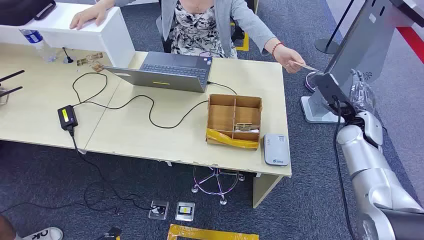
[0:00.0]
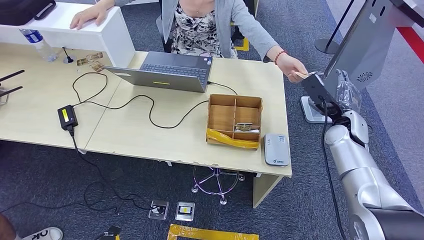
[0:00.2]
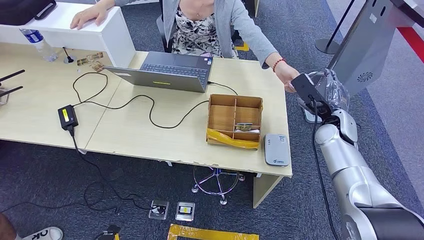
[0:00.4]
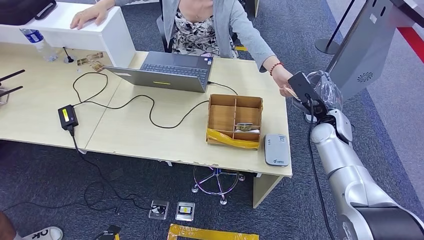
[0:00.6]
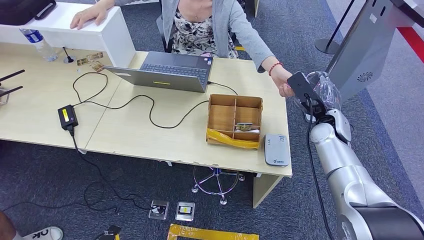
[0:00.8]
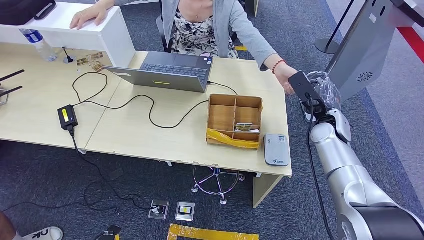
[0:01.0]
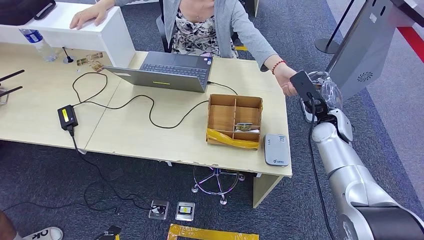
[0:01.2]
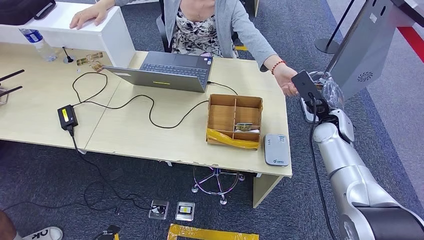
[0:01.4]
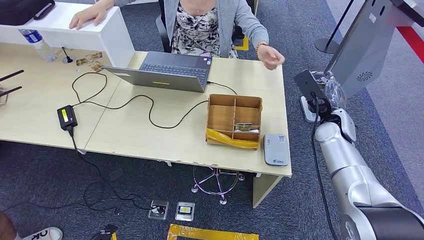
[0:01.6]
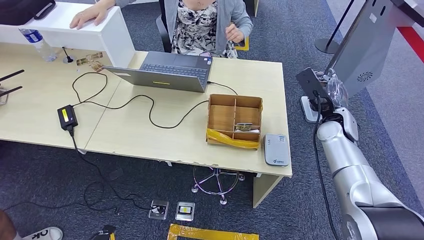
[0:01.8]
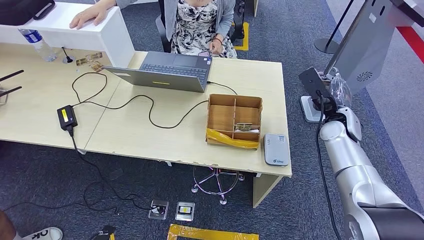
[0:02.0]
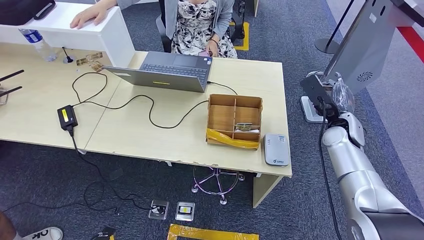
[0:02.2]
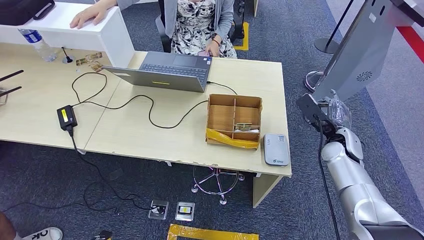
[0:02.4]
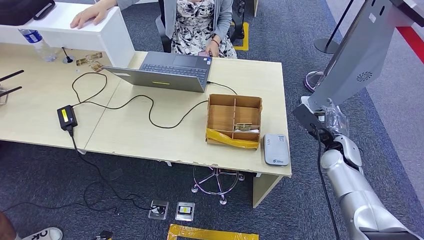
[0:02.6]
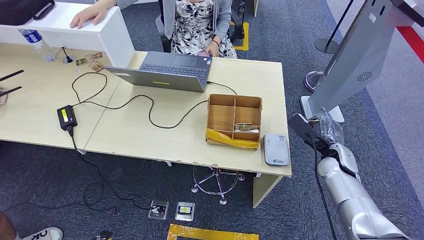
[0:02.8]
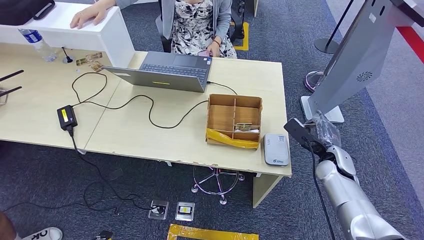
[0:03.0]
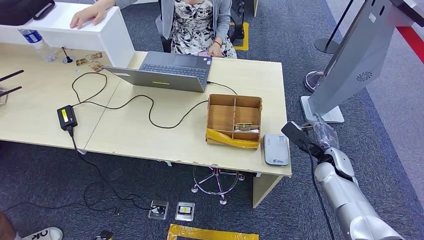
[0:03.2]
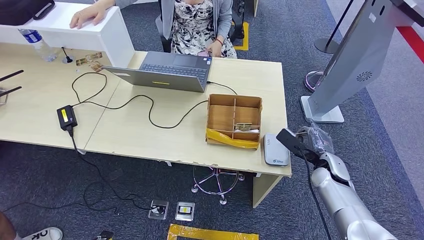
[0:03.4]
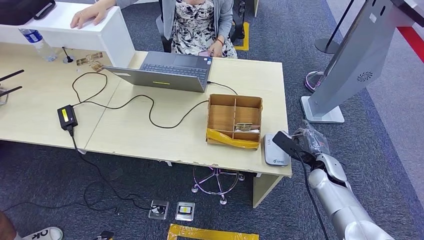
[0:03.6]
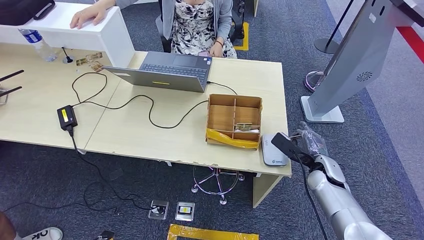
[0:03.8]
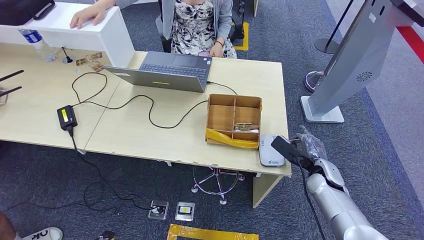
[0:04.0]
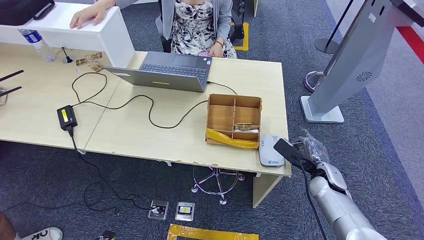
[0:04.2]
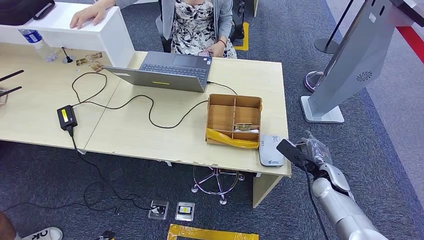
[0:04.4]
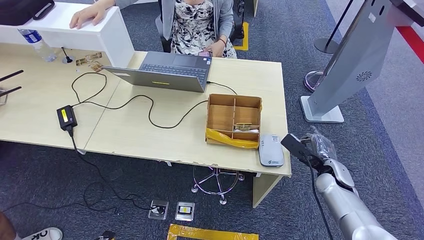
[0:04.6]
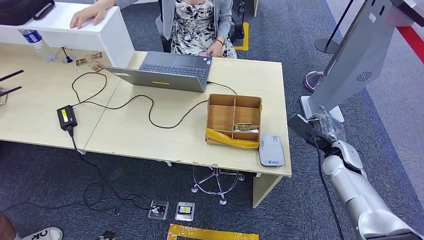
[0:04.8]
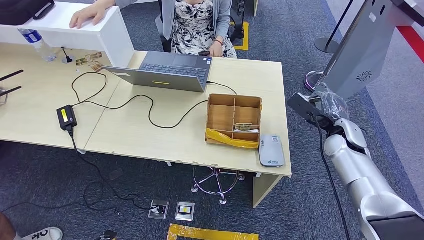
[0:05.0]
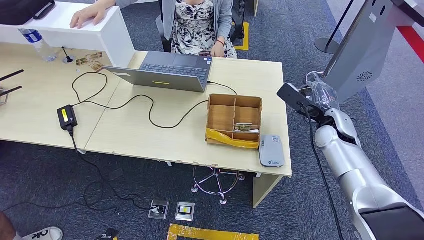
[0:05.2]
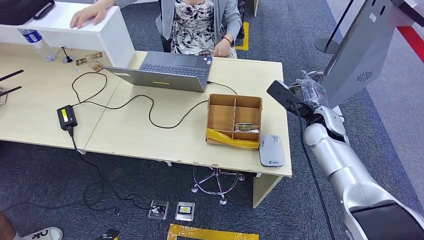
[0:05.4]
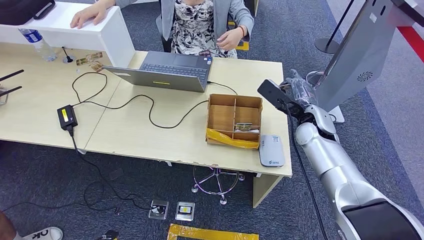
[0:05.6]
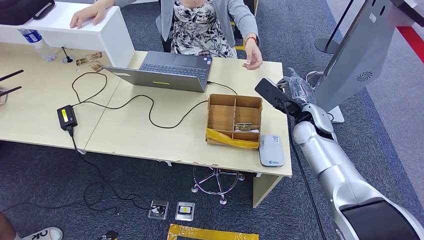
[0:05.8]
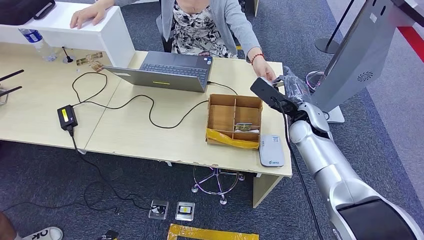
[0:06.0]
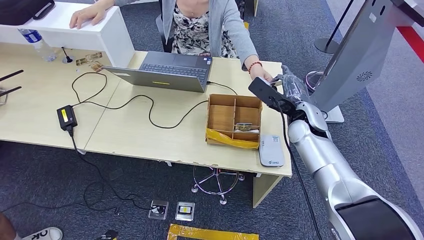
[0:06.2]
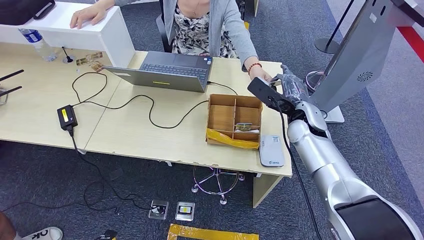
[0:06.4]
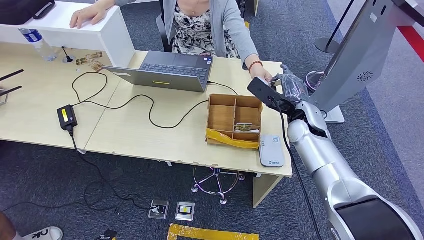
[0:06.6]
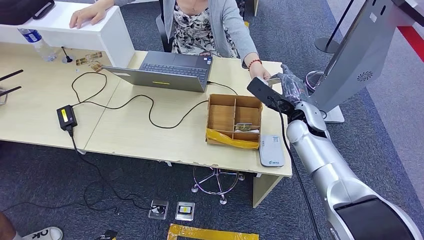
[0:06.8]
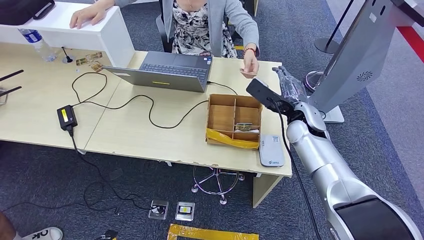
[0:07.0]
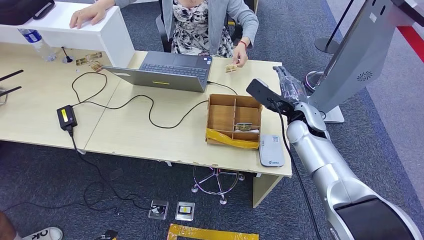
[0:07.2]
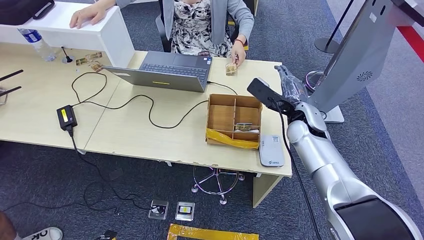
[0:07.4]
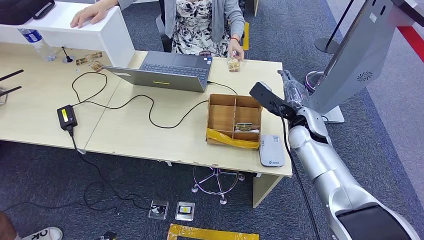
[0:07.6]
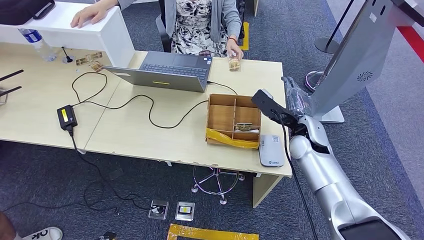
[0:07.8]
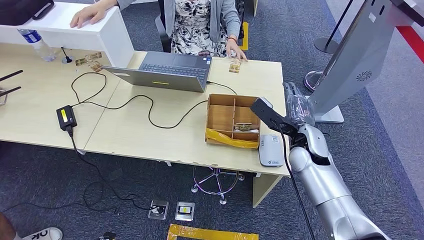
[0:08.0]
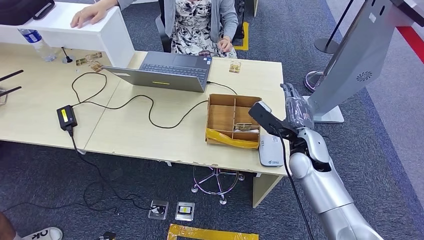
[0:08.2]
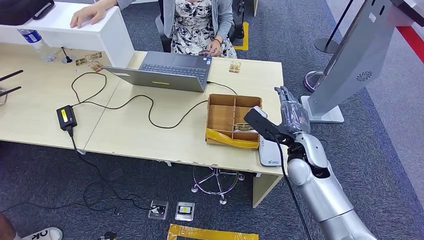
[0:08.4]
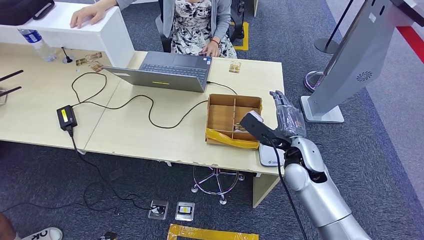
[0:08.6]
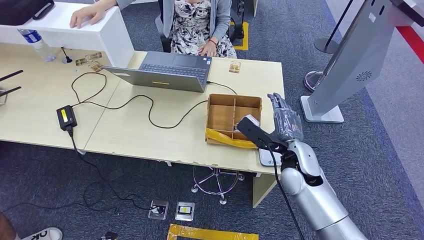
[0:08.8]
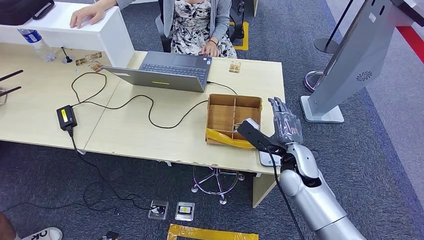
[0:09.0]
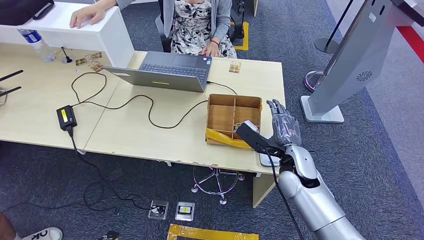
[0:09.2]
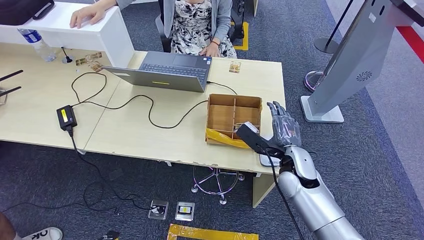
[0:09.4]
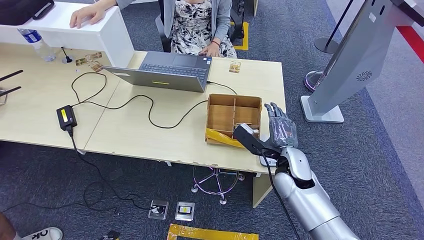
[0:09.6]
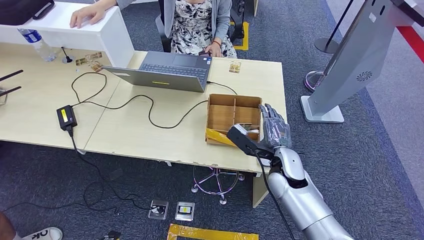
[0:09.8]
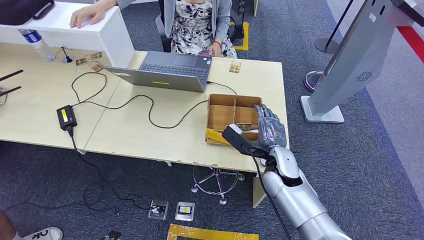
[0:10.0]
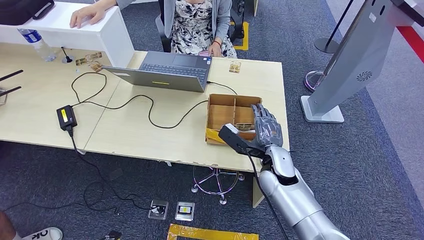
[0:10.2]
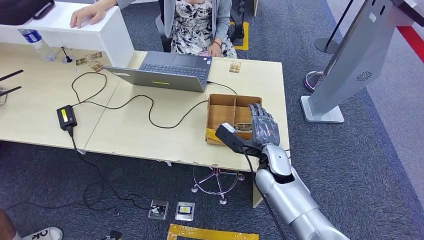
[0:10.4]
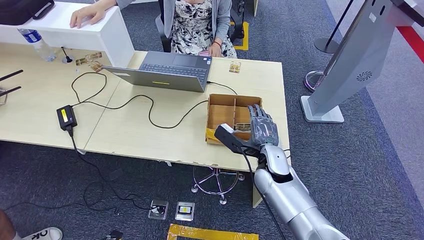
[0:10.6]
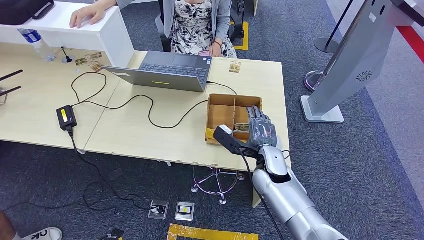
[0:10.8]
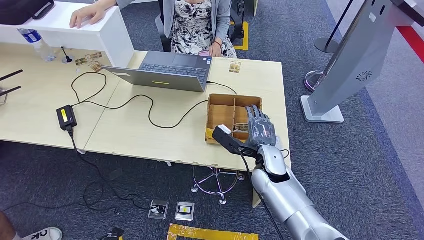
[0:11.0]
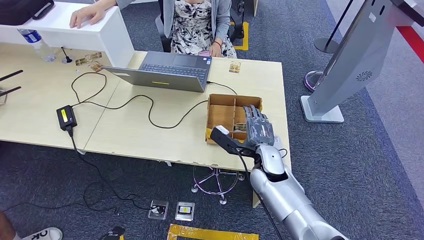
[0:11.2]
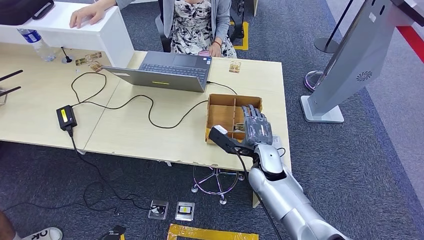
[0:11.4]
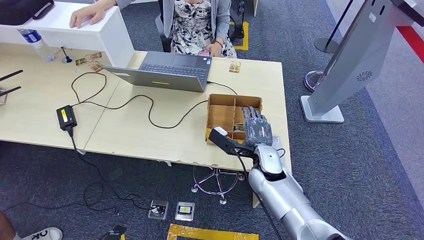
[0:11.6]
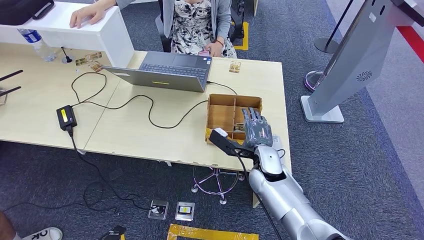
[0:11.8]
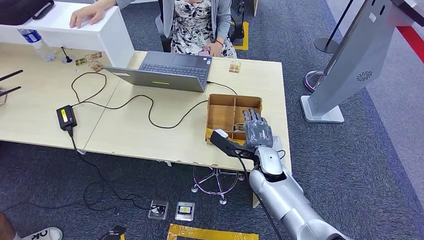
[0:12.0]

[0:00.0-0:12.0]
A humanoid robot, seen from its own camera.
Step, 0:00.0 to 0:02.4: Take the ID card from the person's hand.
Step, 0:02.6 to 0:05.6: Place the ID card on the card reader.
Step, 0:05.8 to 0:09.4: Hand the ID card to the person.
0:01.6 to 0:03.0: The right hand is displaced downward and backward by approximately 10 cm.
0:03.0 to 0:04.4: The right hand changes place by approximately 5 cm.
0:04.4 to 0:06.0: The right hand is displaced upward, to the left and forward by some 20 cm.
0:06.0 to 0:07.6: Neither hand changes place.
0:07.6 to 0:09.0: The right hand shifts approximately 10 cm backward and downward.
0:09.0 to 0:10.4: The right hand heads to the left, covering about 5 cm.
0:10.4 to 0:12.0: The hands move only a little.

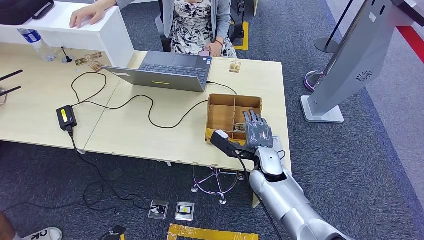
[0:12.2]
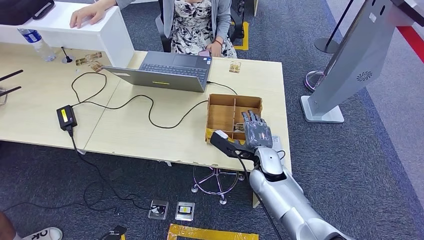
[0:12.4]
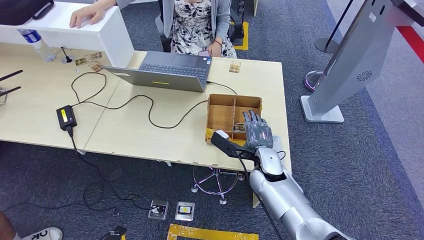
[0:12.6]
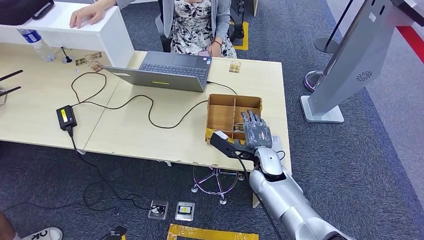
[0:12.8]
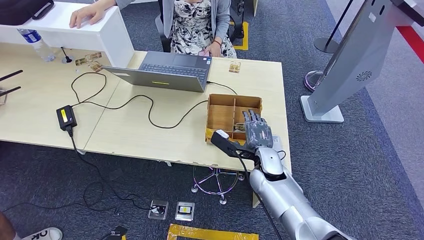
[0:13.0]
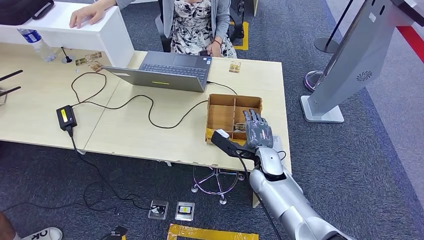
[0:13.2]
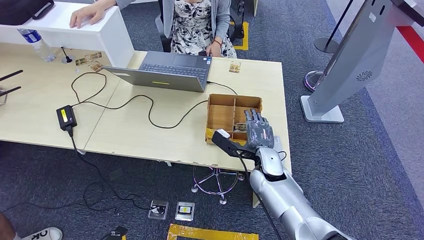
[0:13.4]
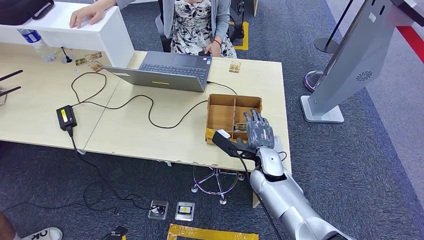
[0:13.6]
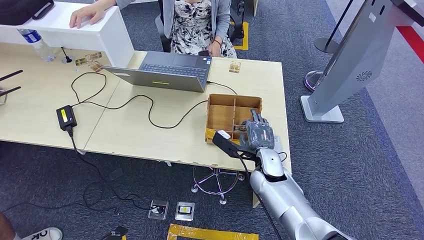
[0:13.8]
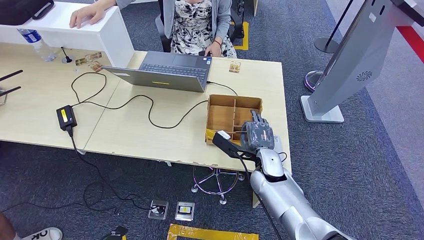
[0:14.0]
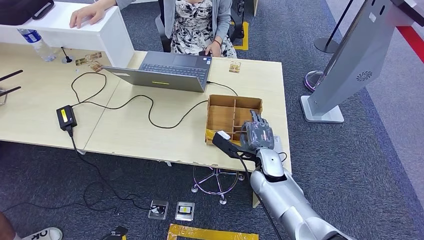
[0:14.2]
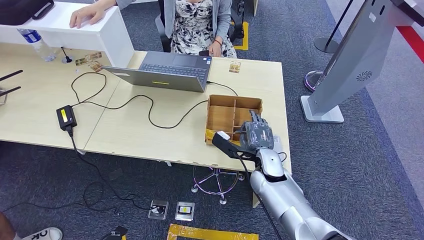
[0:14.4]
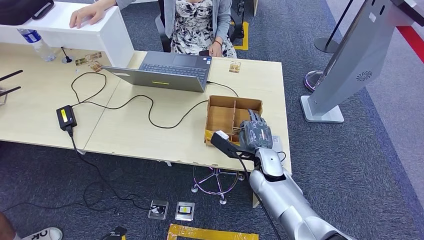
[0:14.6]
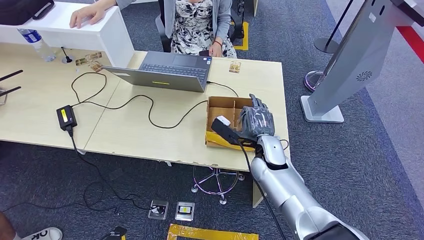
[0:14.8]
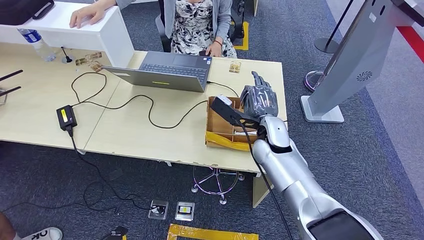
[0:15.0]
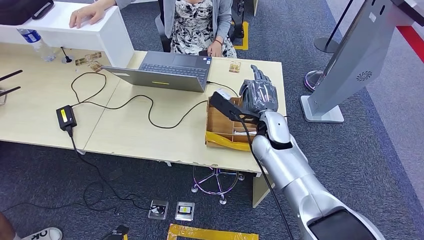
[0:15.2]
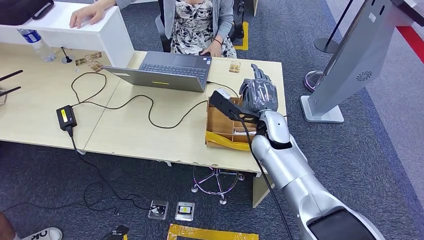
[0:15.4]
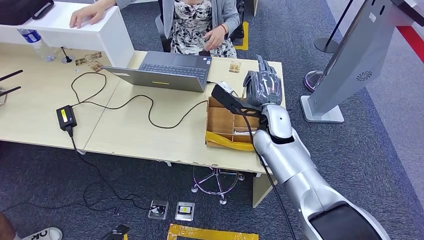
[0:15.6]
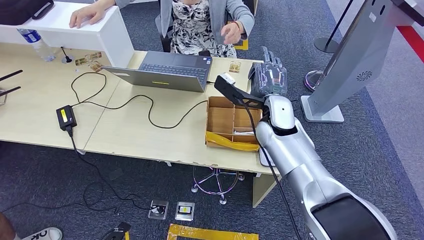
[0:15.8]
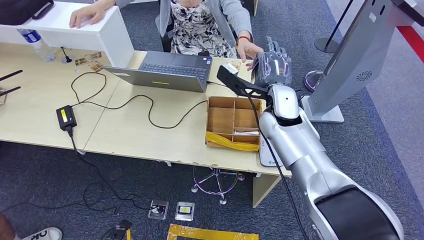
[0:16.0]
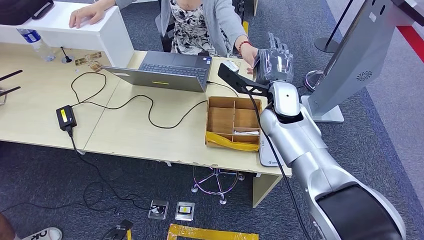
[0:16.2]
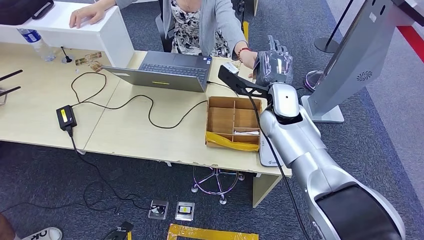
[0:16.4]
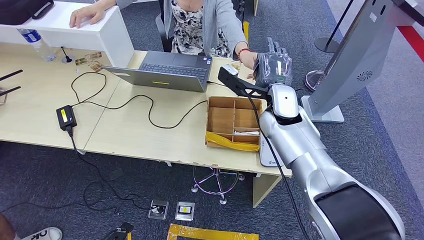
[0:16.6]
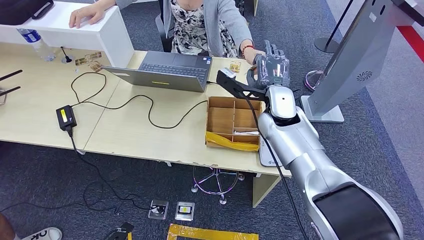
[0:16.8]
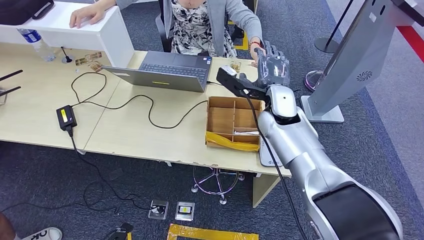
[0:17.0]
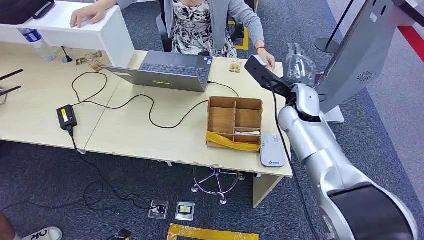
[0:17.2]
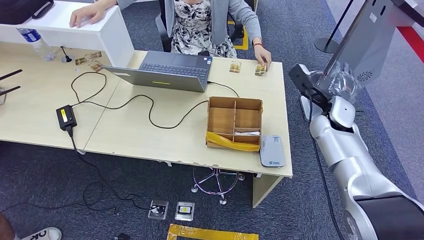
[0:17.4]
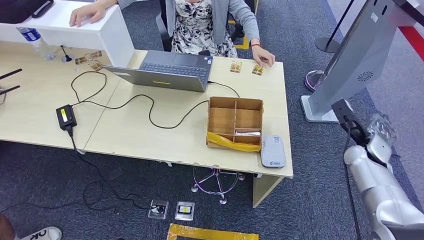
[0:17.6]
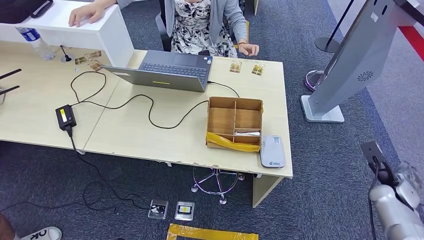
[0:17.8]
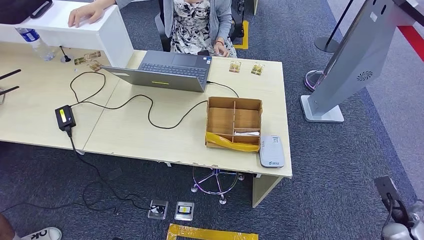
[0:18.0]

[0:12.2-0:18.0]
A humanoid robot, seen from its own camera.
Step, 0:12.2 to 0:15.2: Pick up the room key from the key card box.
0:12.2 to 0:13.6: Both hands stay about where they are.
0:13.6 to 0:15.0: The right hand shifts some 10 cm upward and forward.
0:15.0 to 0:16.6: The right hand shifts some 10 cm upward.
0:16.6 to 0:18.0: The right hand heads to the right, downward and backward, covering approximately 50 cm.
